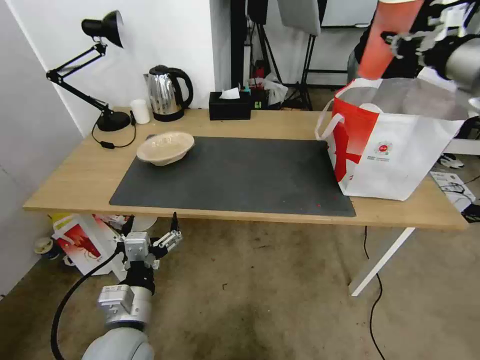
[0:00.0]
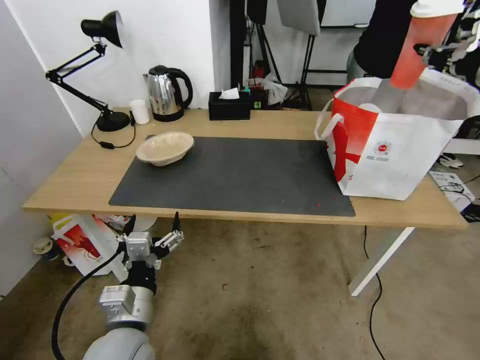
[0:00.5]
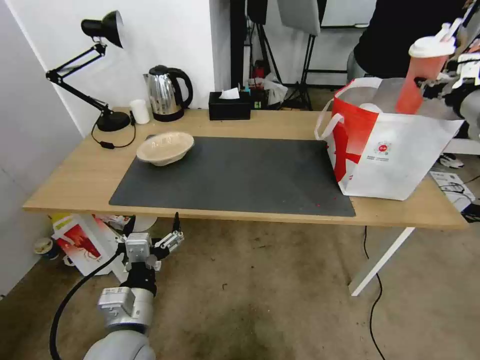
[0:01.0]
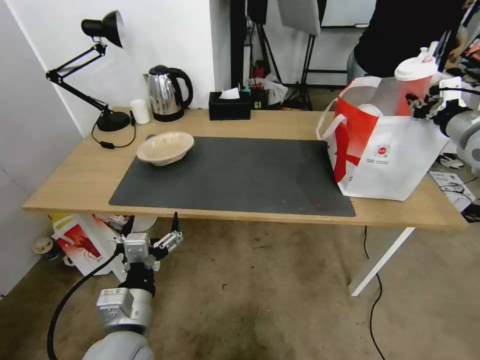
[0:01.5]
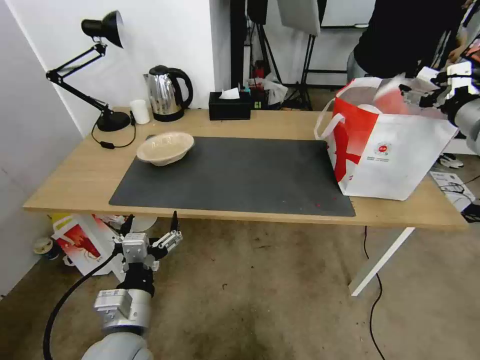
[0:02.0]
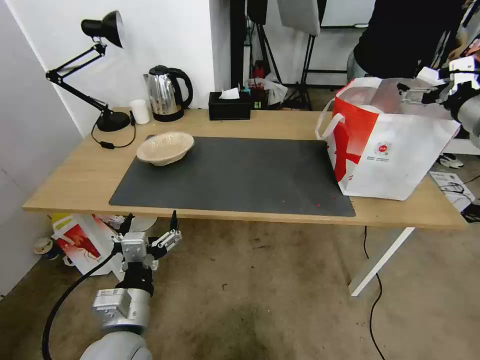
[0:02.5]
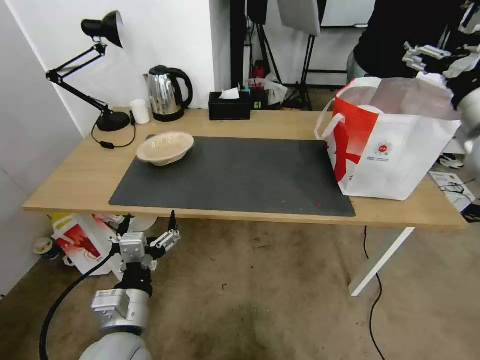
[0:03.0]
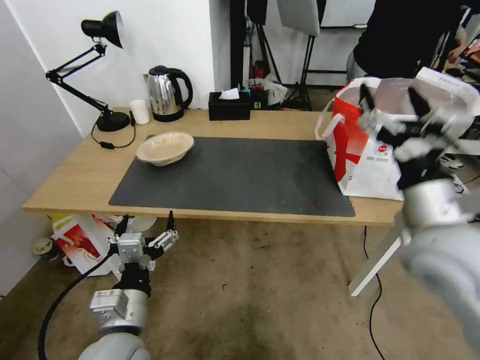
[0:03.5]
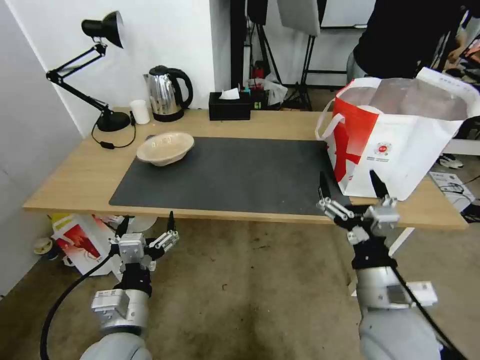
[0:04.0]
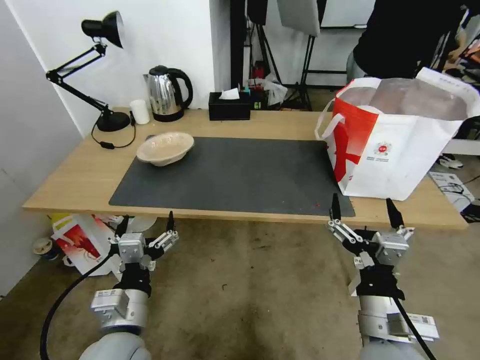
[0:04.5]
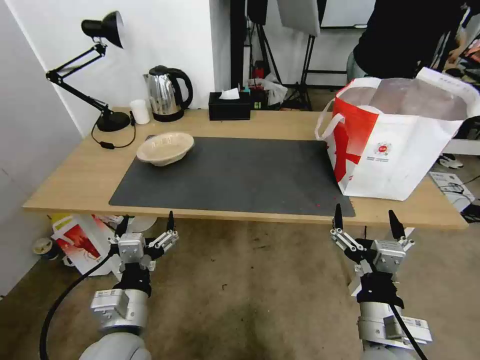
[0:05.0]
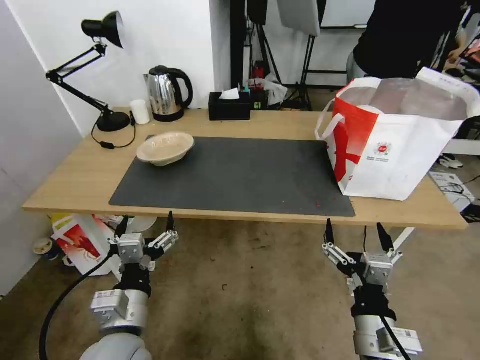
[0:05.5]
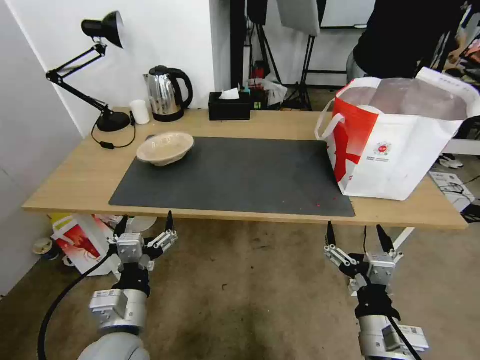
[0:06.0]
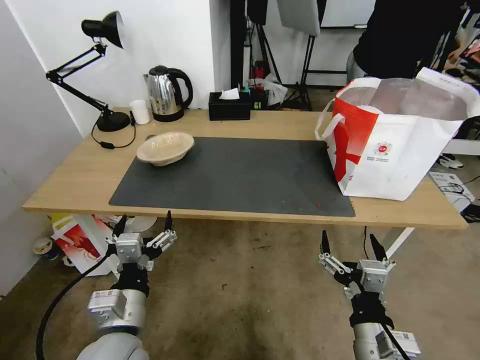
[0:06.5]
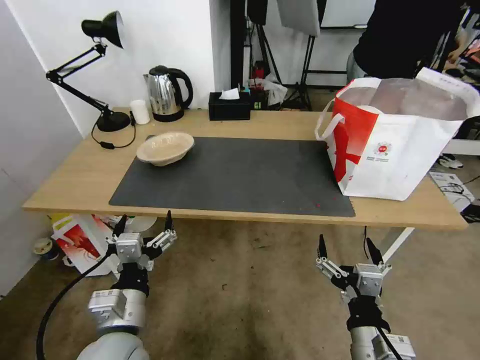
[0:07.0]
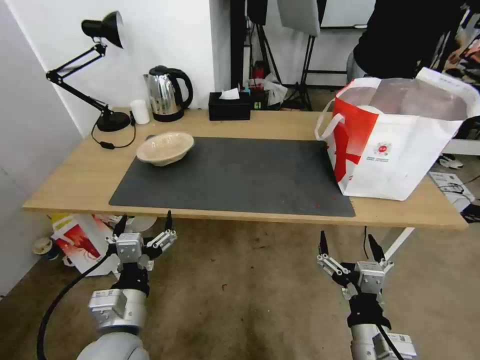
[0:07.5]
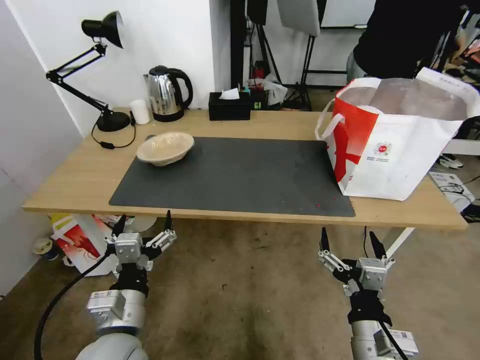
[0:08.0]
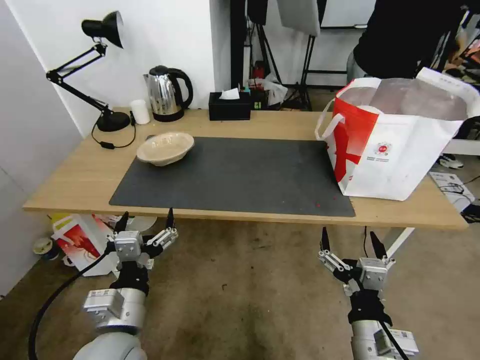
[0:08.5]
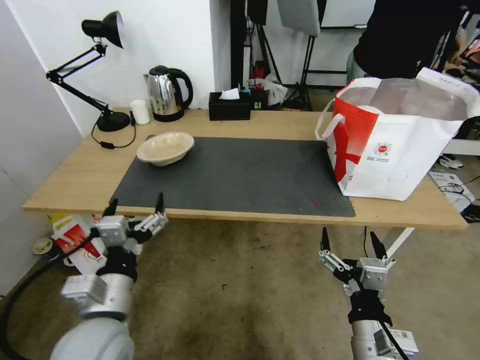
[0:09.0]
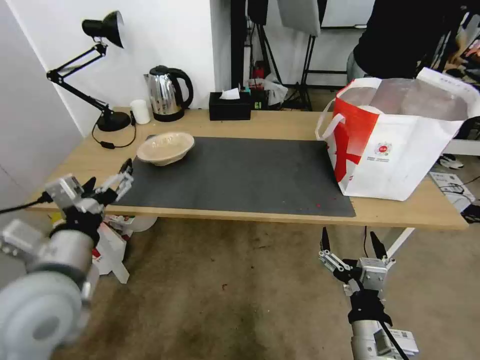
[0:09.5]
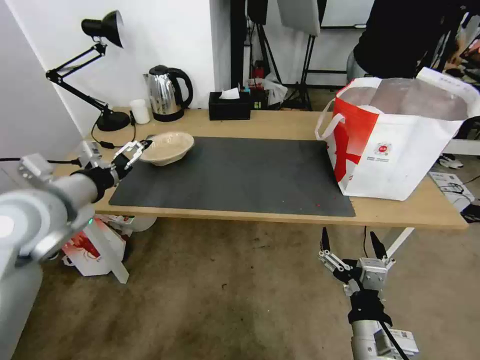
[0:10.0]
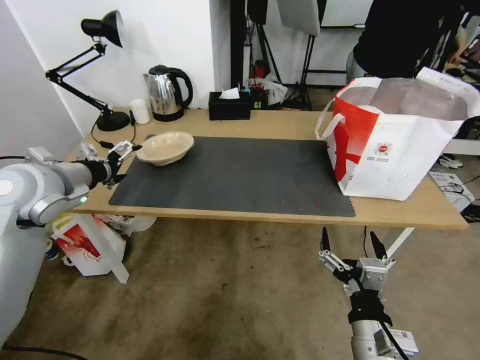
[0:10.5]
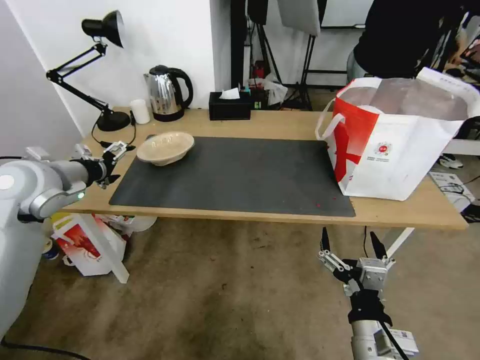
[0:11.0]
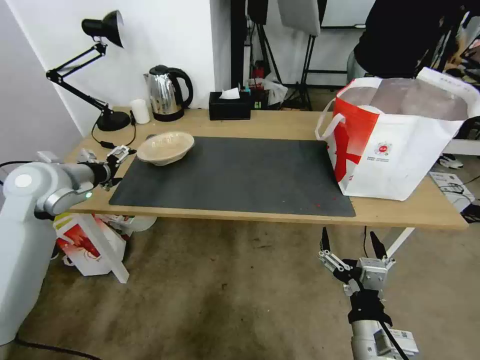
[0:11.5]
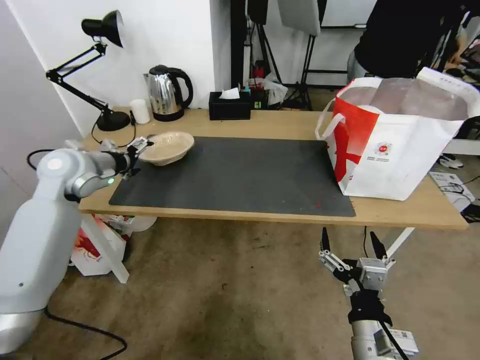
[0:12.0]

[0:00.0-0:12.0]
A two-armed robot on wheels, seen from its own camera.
Task of the whole recording: Pick up the trash from the table and place it into the takeout bag.
0:00.0 to 0:02.0: The right gripper travels downward and to the right by about 15 cm, and opens.
0:02.0 to 0:04.0: The right gripper heads backward, to the left and downward, covering roughly 40 cm.
0:04.0 to 0:06.0: The right gripper heads backward, covering roughly 5 cm.
0:06.0 to 0:08.0: The grippers make only small movements.
0:08.0 to 0:10.0: The left gripper shifts approximately 25 cm upward, forward and to the left.
0:10.0 to 0:12.0: The left gripper shifts approximately 15 cm forward.

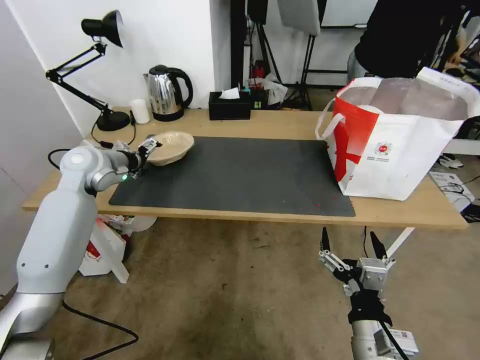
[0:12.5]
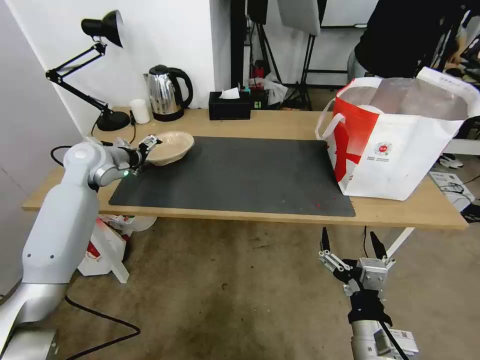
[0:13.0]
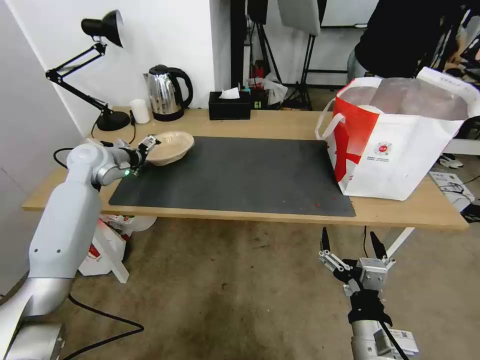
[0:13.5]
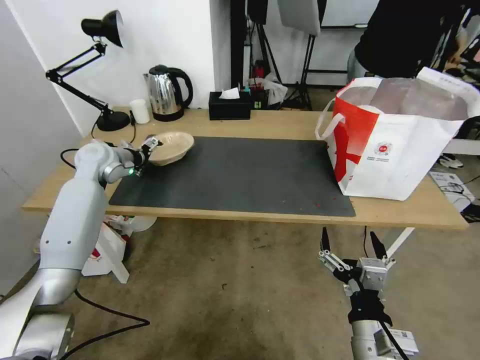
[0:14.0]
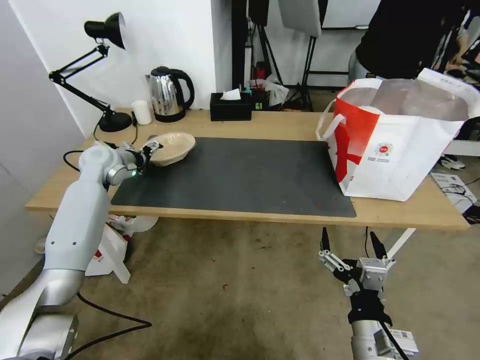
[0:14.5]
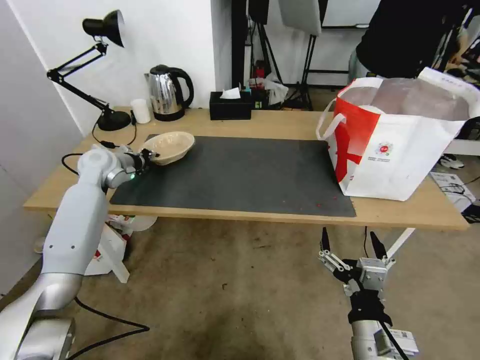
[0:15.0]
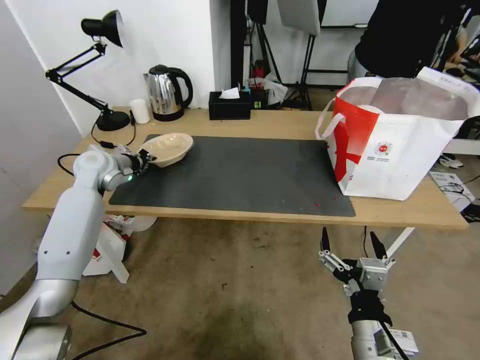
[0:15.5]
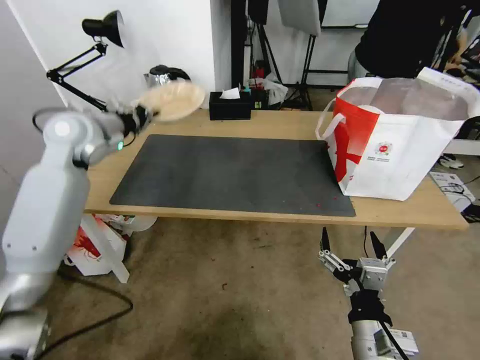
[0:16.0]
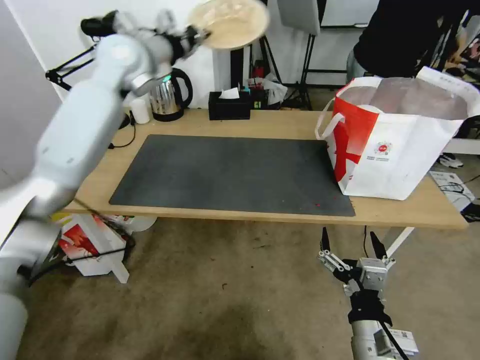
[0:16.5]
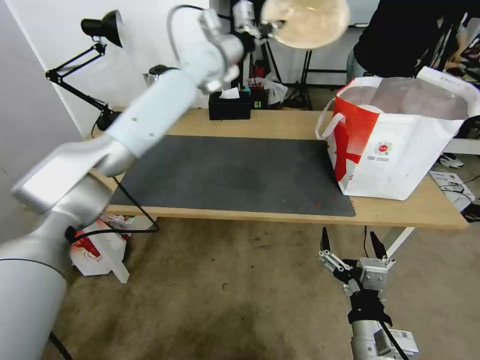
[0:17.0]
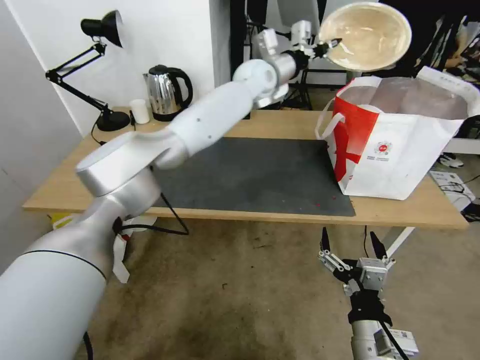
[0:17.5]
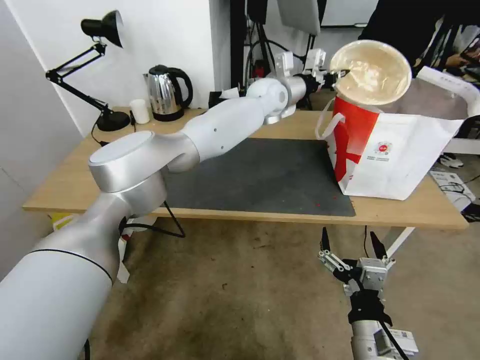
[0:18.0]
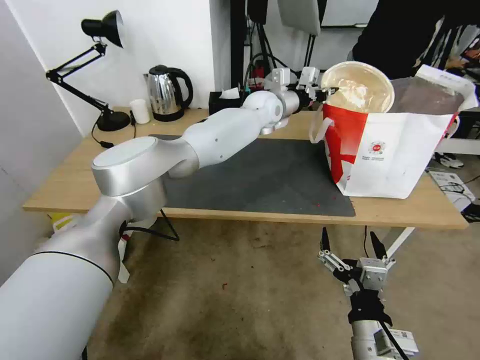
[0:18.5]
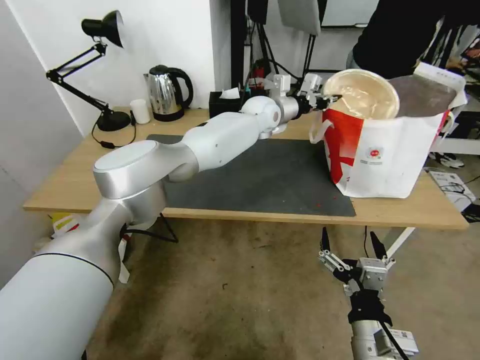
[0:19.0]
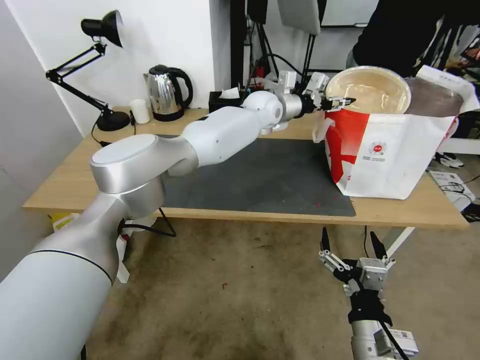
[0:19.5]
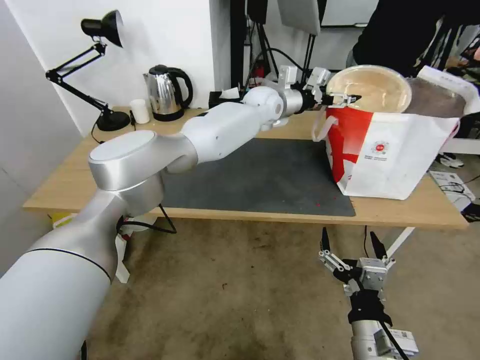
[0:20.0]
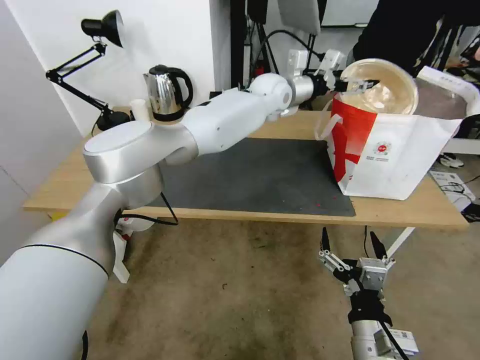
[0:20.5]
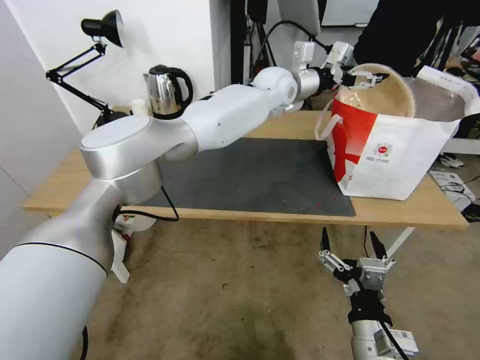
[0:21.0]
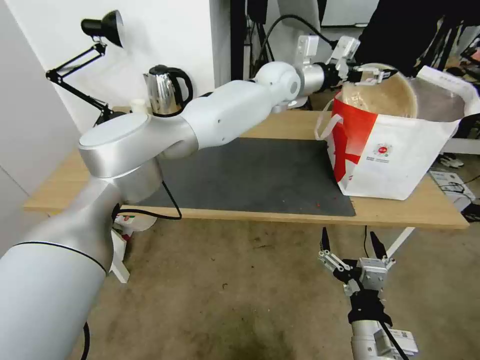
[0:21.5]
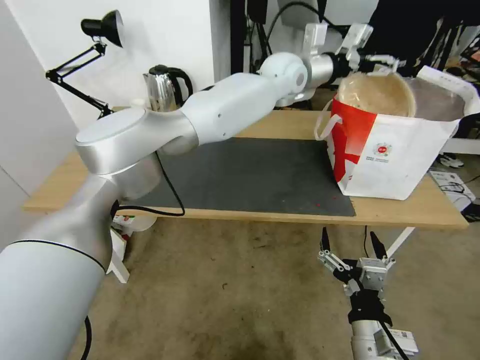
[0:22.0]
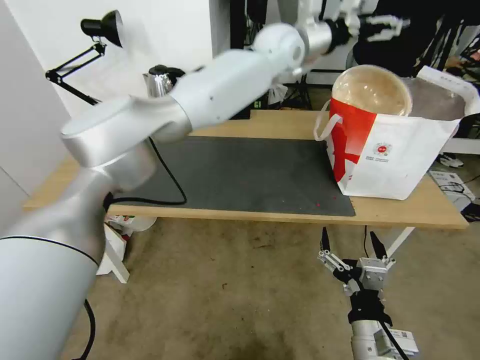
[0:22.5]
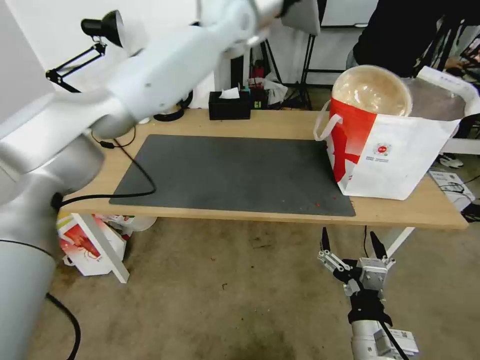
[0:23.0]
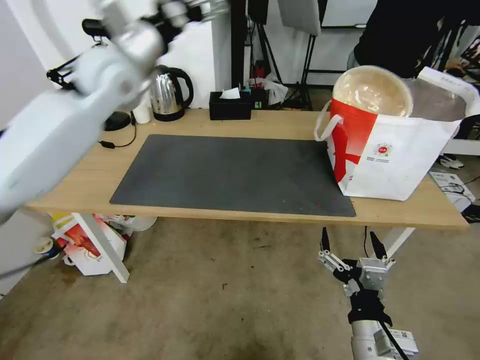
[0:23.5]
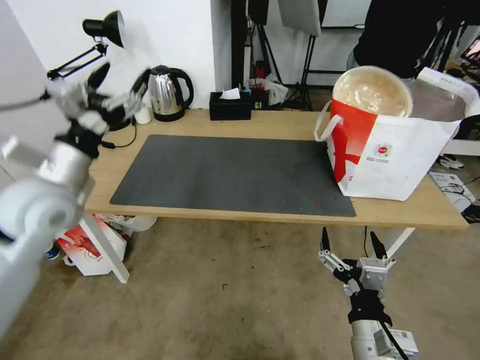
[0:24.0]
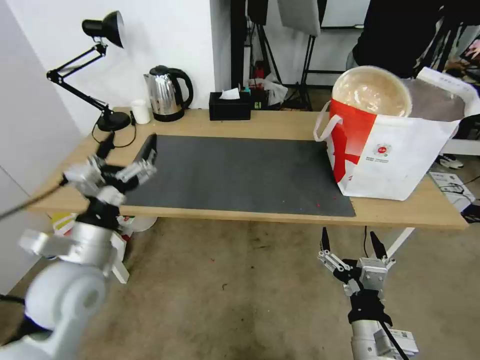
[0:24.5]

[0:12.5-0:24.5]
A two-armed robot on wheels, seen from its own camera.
Task of the whole recording: Pick up the trash from the table and place it into the takeout bag.
0:12.5 to 0:14.5: The left gripper ends up roughly 5 cm from where it was.
0:14.5 to 0:16.5: The left gripper travels upward and to the right by approximately 25 cm, and closes.
0:16.5 to 0:18.5: The left gripper moves to the right and downward, roughly 35 cm.
0:18.5 to 0:20.5: The left gripper opens its fingers.
0:20.5 to 0:22.5: The left gripper shifts roughly 15 cm upward.
0:22.5 to 0:24.5: The left gripper goes approximately 60 cm backward, to the left and downward.

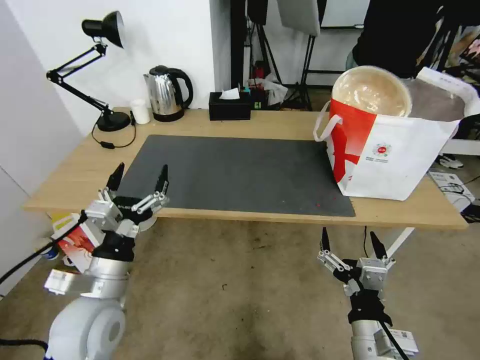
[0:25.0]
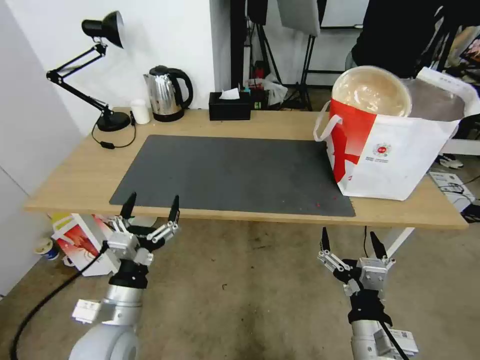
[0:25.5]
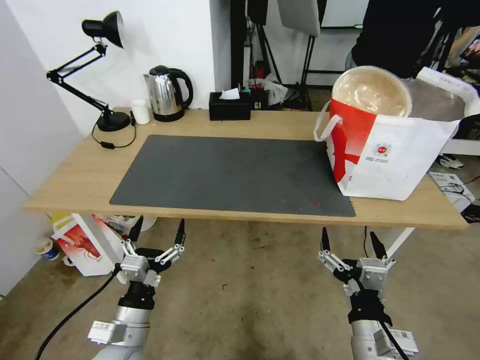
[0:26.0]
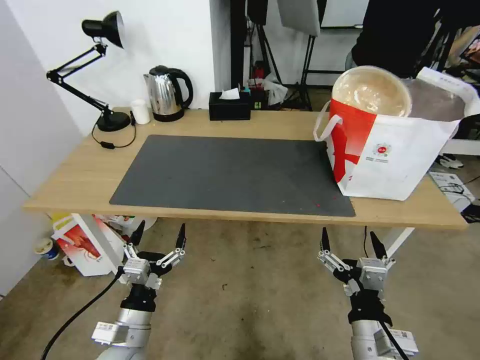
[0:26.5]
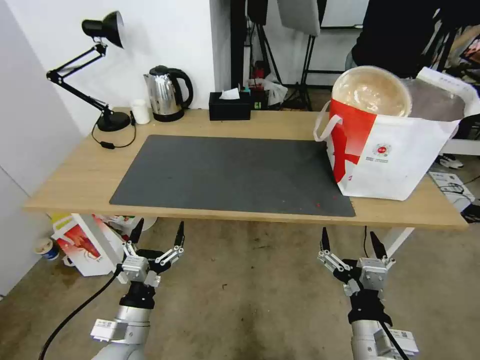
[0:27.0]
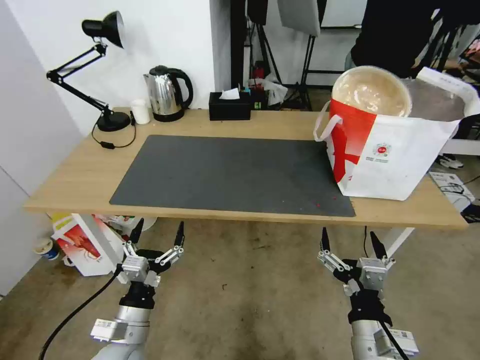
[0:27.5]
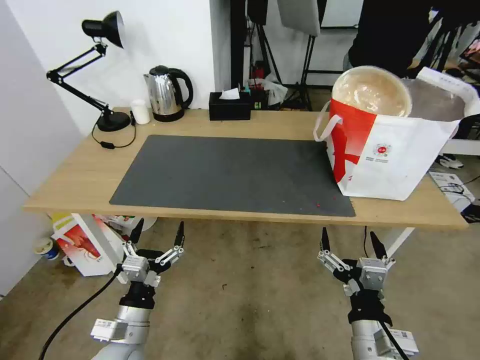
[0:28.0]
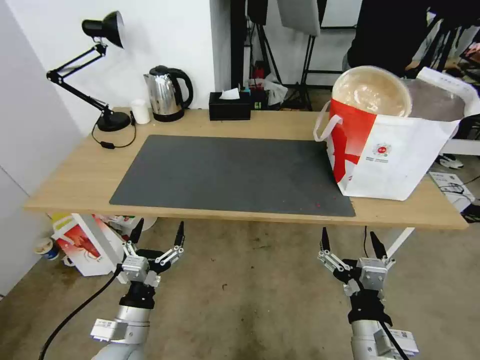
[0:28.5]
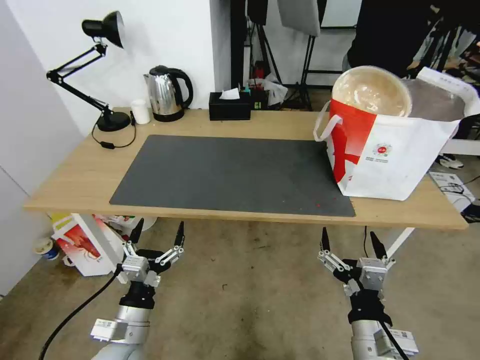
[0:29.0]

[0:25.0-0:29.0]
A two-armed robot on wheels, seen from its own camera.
Task of the whole recording: Pick up the trash from the table and place it into the takeout bag.
0:25.0 to 0:27.0: The left gripper shifts roughly 10 cm downward.
0:27.0 to 0:29.0: Both grippers stay put.
